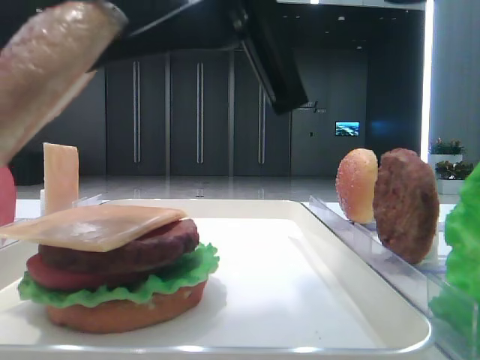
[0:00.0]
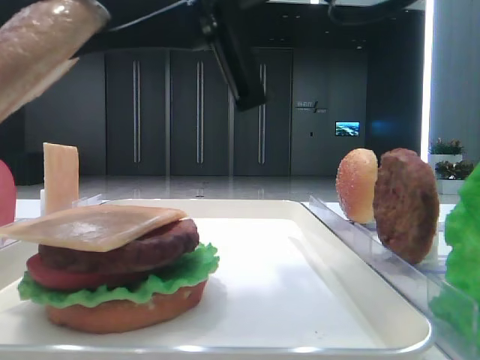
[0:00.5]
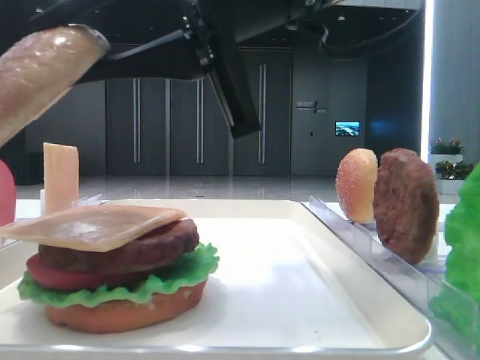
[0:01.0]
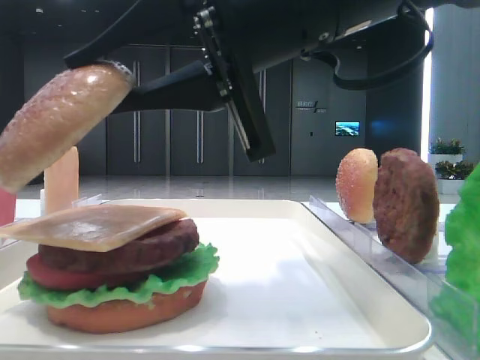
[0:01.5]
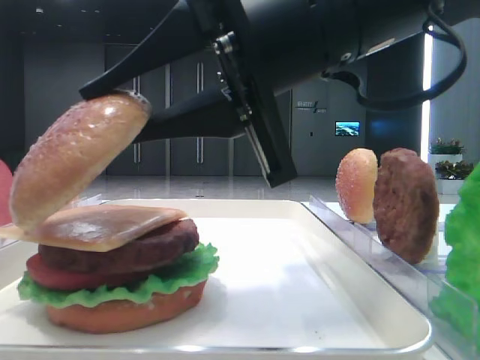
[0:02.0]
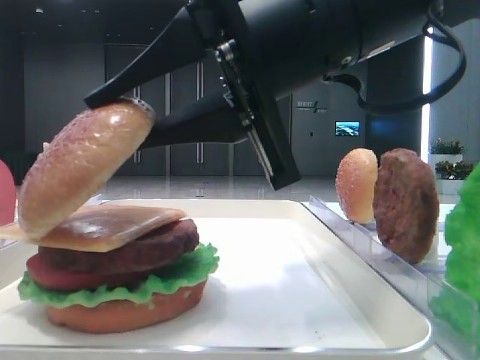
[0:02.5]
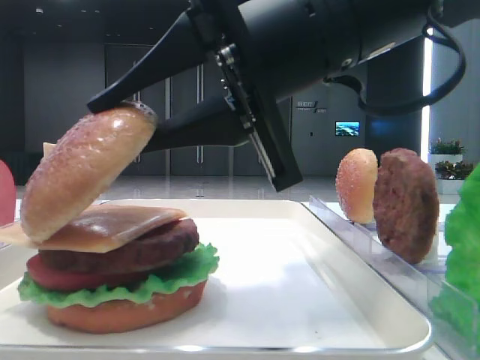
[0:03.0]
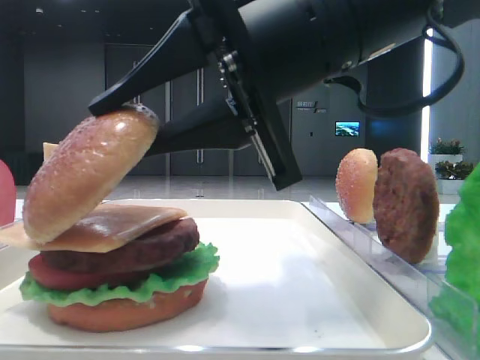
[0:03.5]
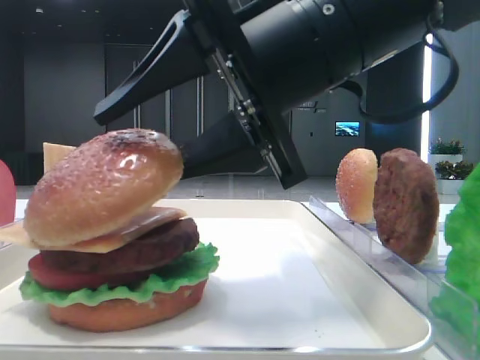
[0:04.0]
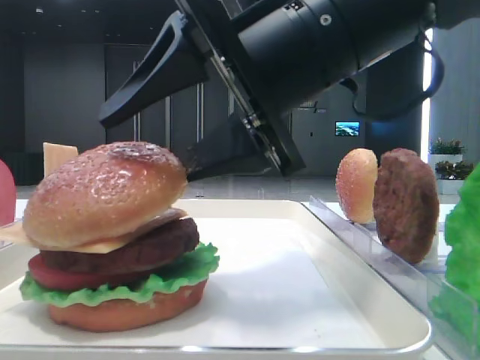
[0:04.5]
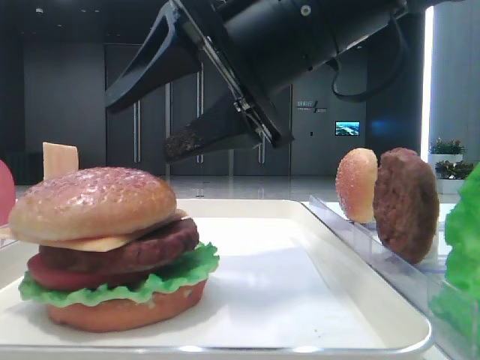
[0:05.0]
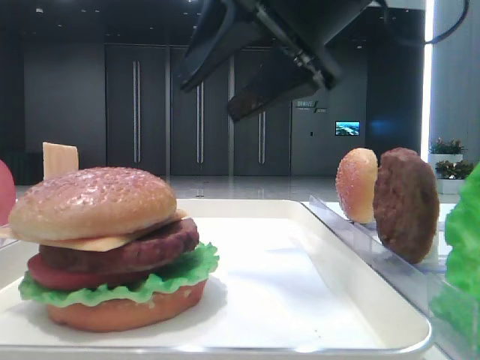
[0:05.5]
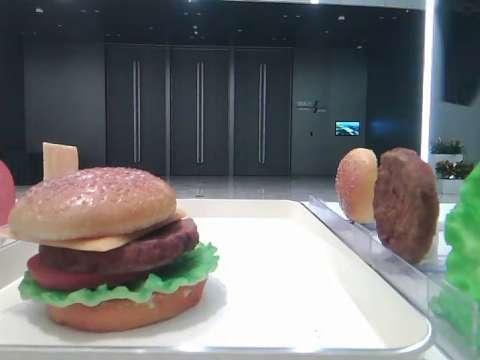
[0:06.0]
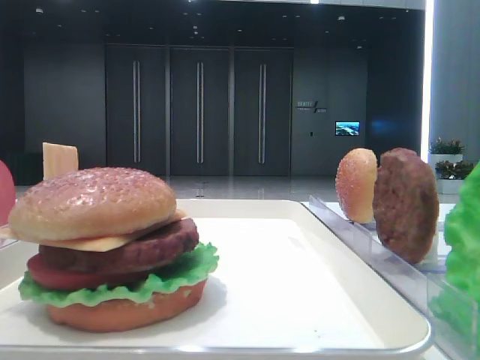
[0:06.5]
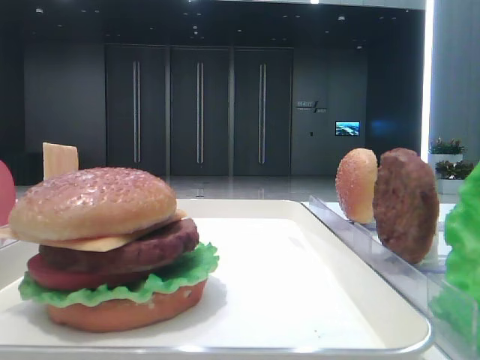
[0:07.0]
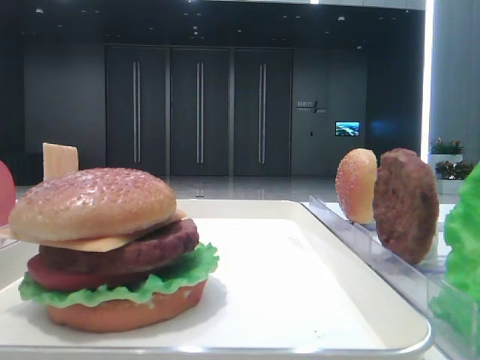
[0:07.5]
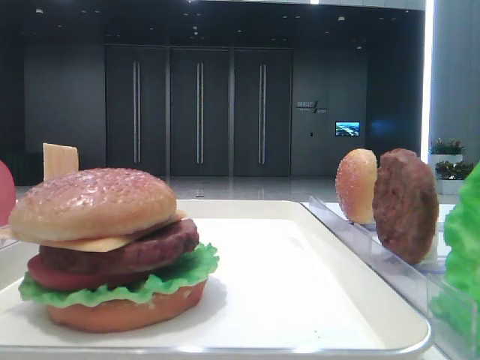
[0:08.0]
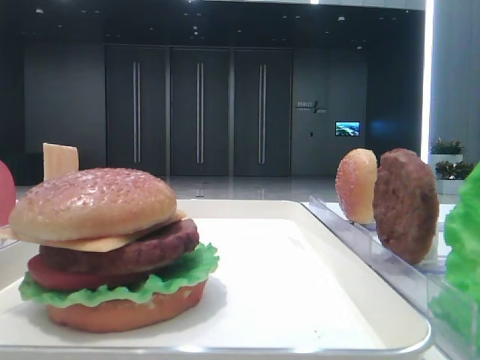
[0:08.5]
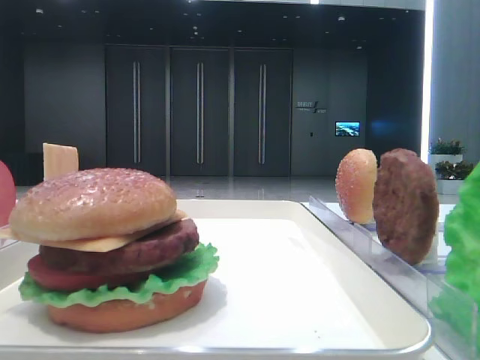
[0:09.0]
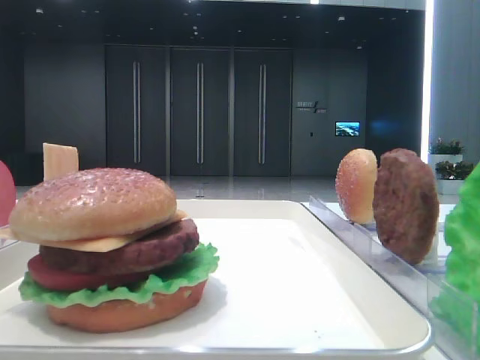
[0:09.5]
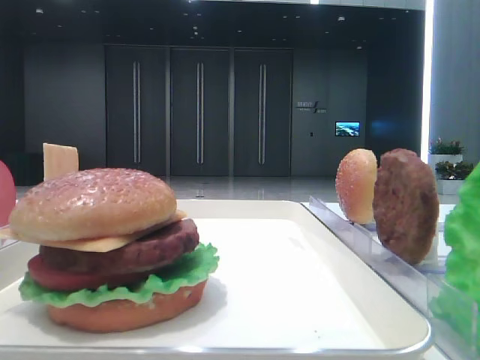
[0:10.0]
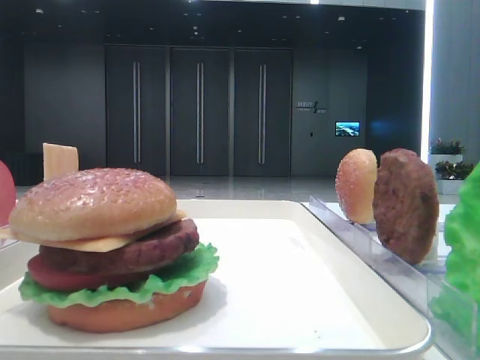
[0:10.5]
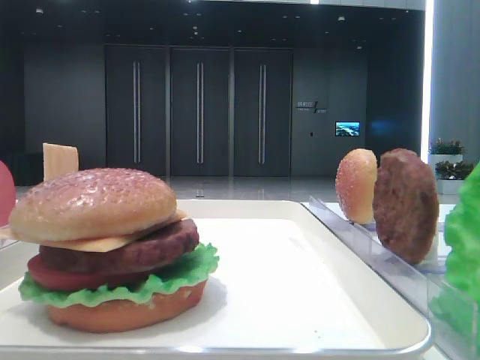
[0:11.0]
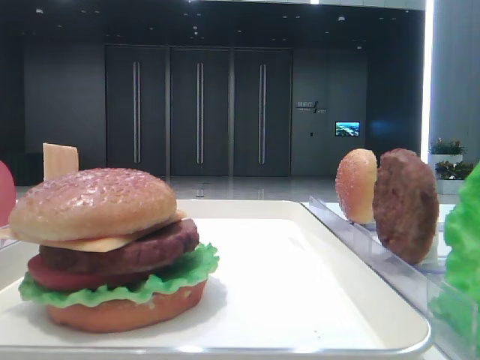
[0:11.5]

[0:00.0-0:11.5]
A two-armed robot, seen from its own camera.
Step, 0:00.0 to 0:04.5: Place the top bread slice on the cheese with the right hand.
0:00.0 to 0:02.0: The right gripper changes place by roughly 5 cm.
0:02.0 to 0:04.0: The right gripper opens its fingers.
0:04.0 to 0:06.0: The right gripper goes roughly 20 cm to the right and upward.
0:06.0 to 0:07.5: The right gripper heads backward, upward and to the right, covering roughly 25 cm.
0:09.5 to 0:11.5: Both grippers stay about where they are.

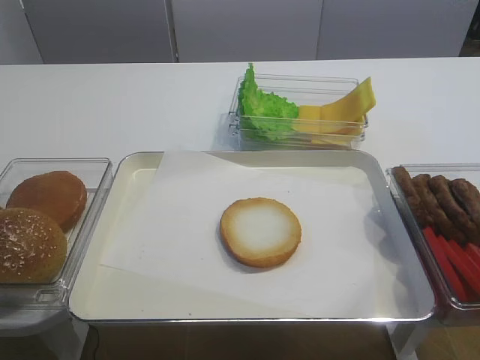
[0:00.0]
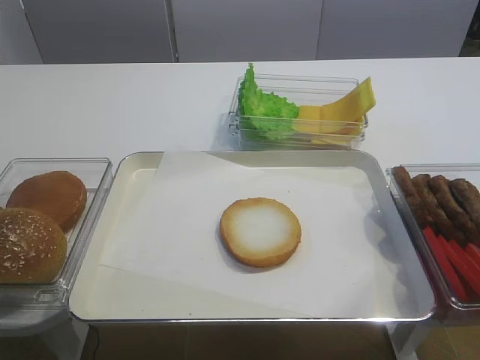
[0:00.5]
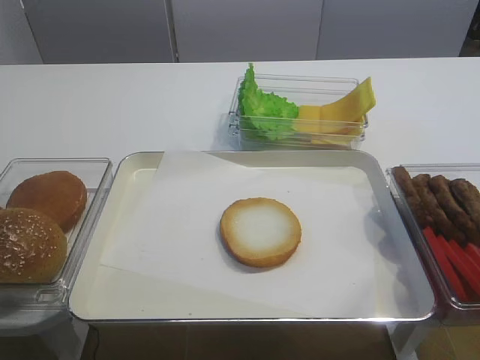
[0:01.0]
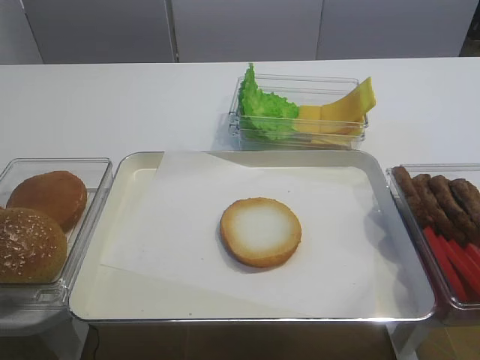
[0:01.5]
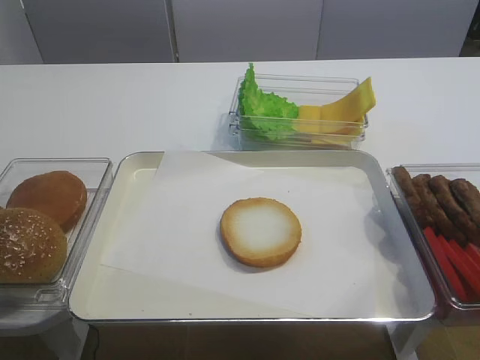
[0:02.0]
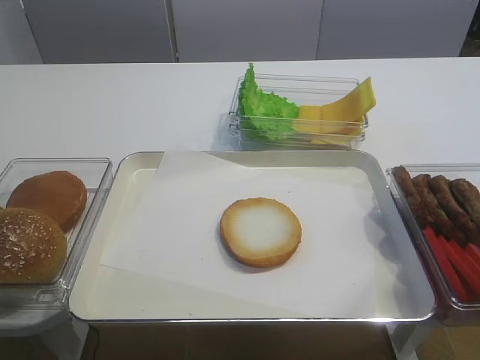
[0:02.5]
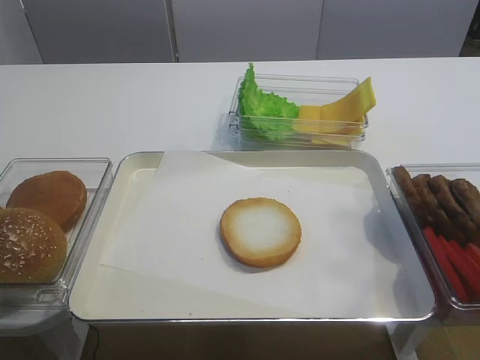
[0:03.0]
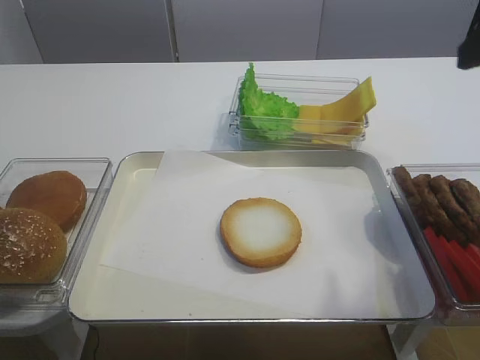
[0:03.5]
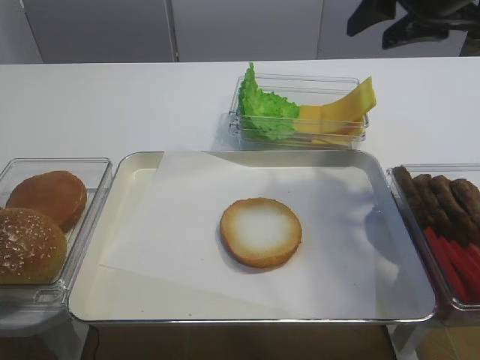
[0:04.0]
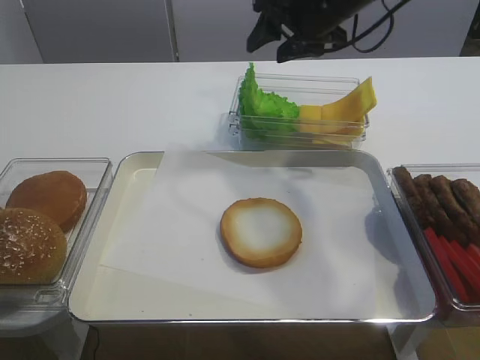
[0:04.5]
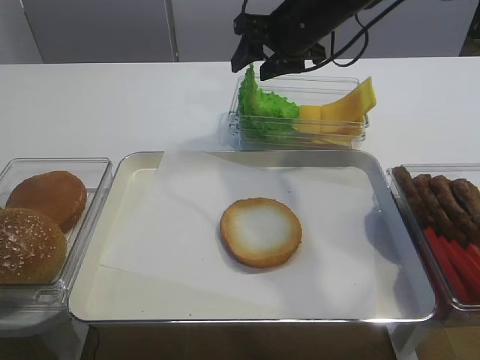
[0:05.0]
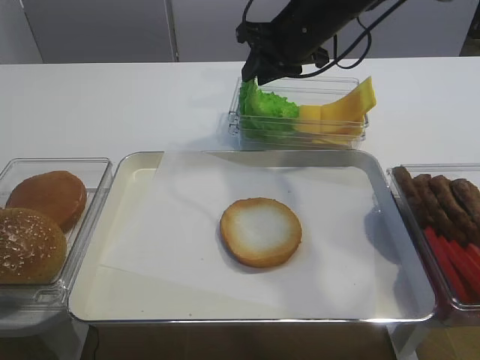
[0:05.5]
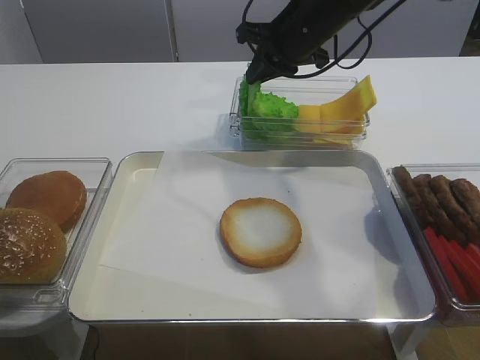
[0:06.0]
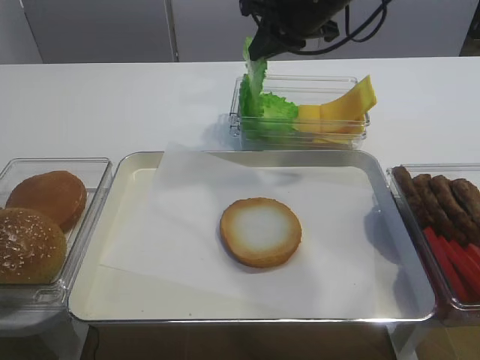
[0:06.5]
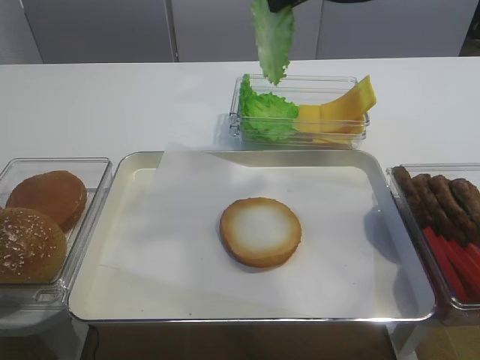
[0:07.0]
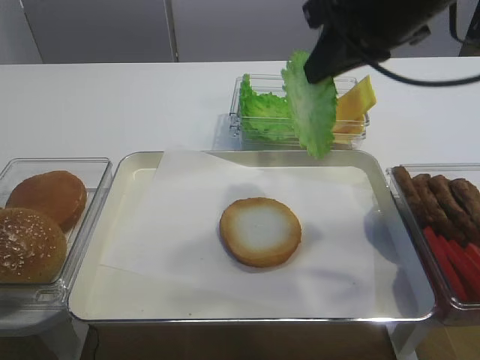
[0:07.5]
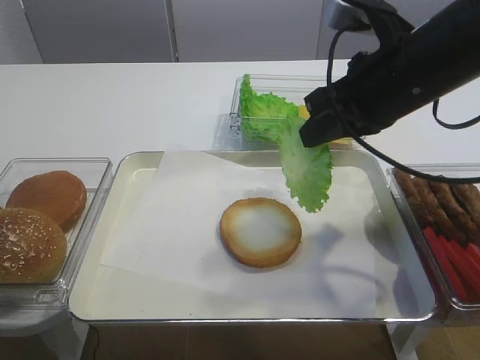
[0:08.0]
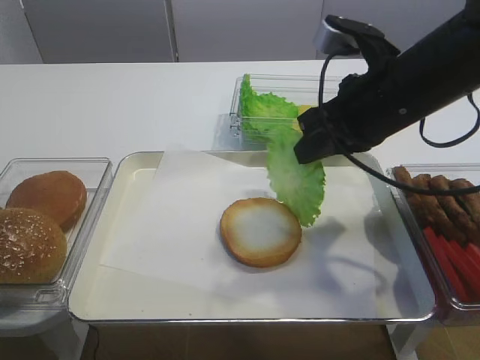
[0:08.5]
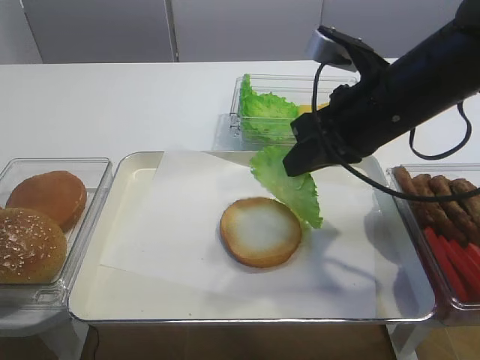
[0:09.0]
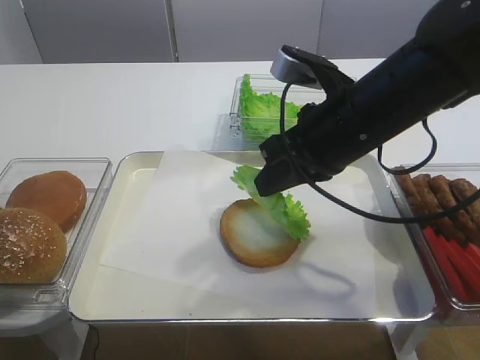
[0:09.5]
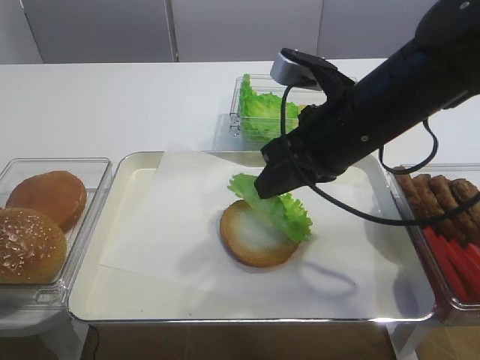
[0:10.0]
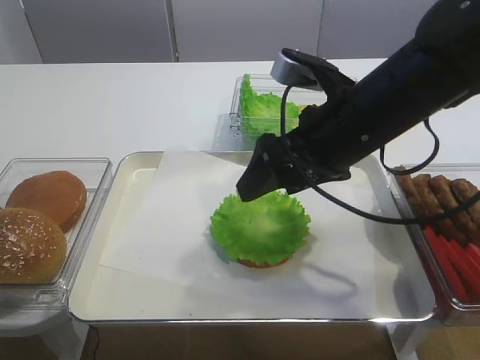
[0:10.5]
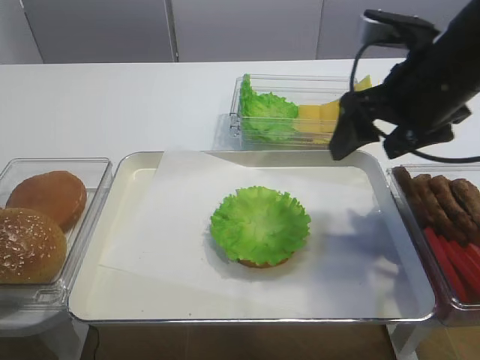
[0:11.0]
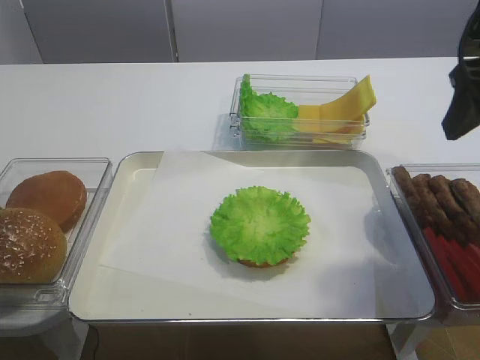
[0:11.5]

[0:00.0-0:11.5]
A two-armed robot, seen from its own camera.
Step, 0:00.0 to 0:07.0: Pick up the lettuce leaf with the right gripper.
Step, 0:07.5 to 0:10.5: Place the lettuce leaf on the bread slice with the right gripper.
0:02.0 to 0:04.0: The right gripper goes roughly 35 cm forward.
0:04.0 to 0:06.0: The right gripper goes roughly 15 cm to the left, forward and downward, and closes up.
0:06.0 to 0:07.5: The right gripper moves backward and upward, roughly 15 cm.
0:07.5 to 0:09.5: The right gripper moves downward, some 10 cm.
0:09.5 to 0:11.5: The right gripper goes roughly 15 cm to the right and upward, and opens.

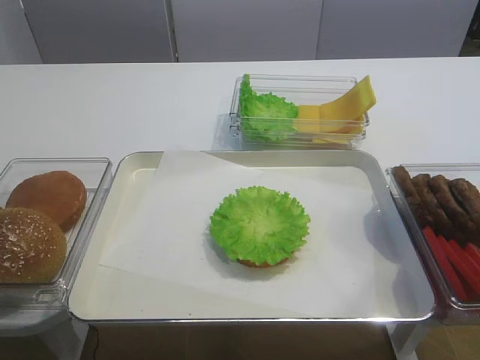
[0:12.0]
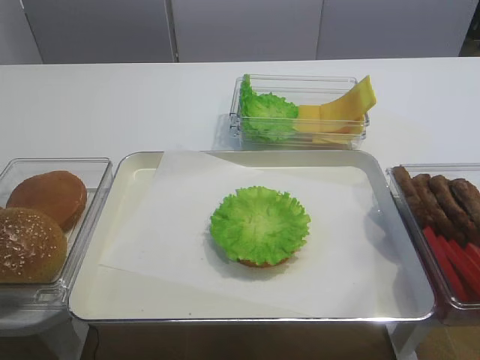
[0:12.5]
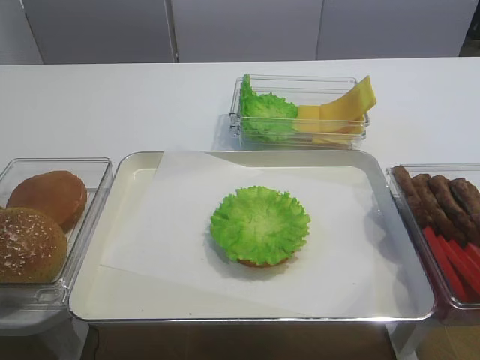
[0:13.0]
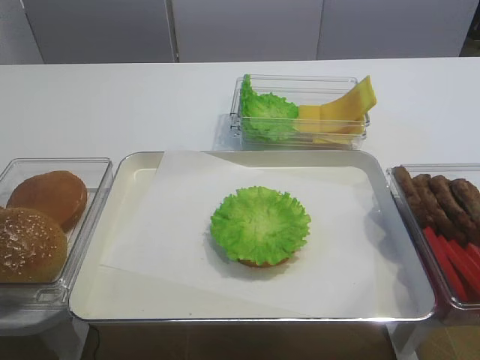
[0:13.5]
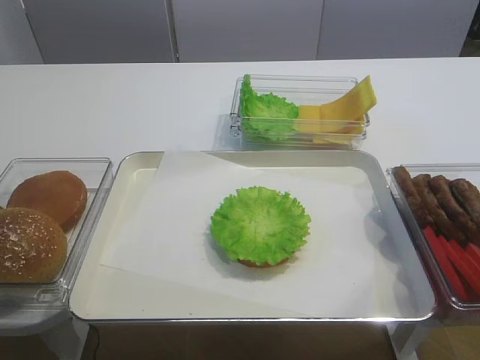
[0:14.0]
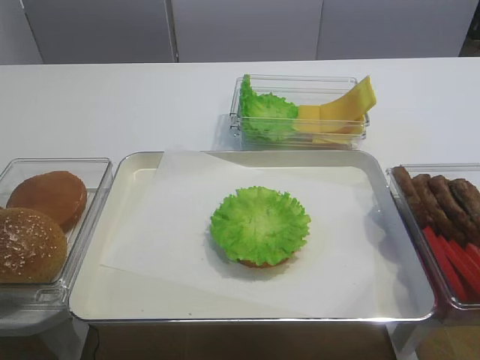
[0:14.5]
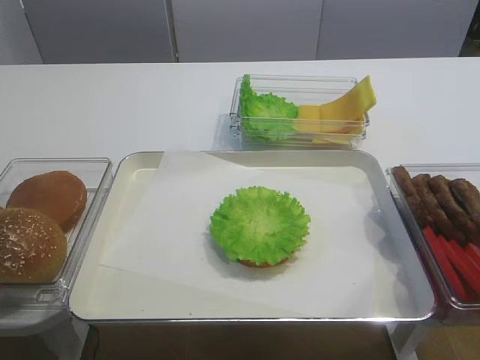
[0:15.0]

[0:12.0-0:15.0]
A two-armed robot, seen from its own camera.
0:13.5 to 0:15.0: Neither gripper changes place.
